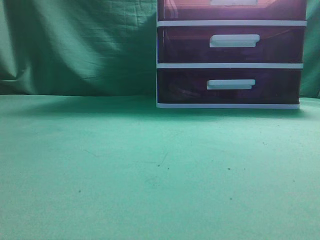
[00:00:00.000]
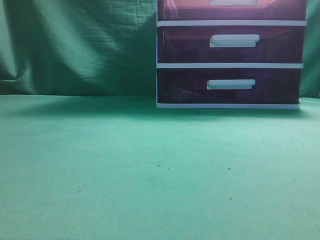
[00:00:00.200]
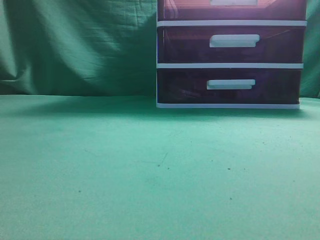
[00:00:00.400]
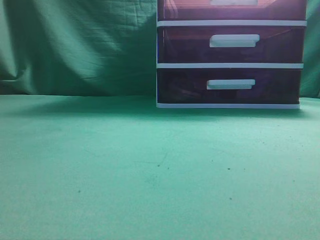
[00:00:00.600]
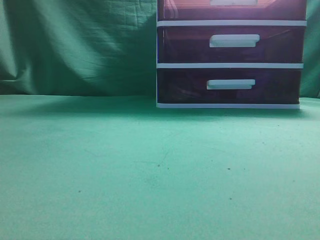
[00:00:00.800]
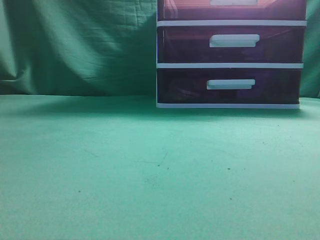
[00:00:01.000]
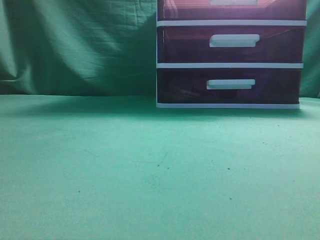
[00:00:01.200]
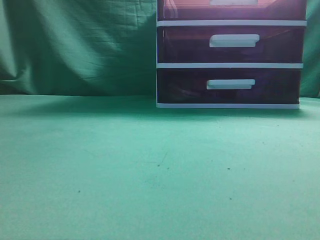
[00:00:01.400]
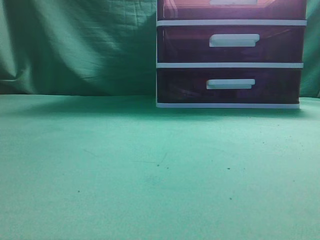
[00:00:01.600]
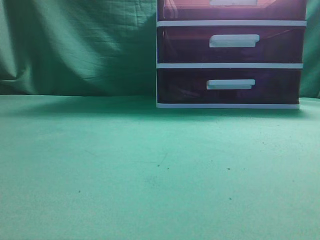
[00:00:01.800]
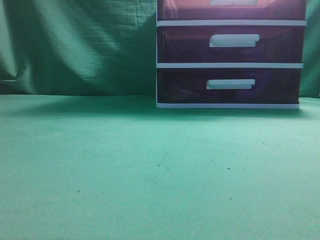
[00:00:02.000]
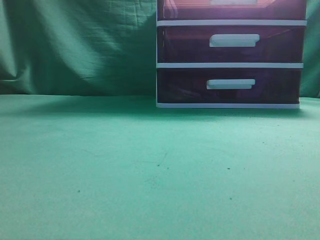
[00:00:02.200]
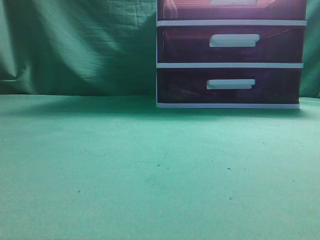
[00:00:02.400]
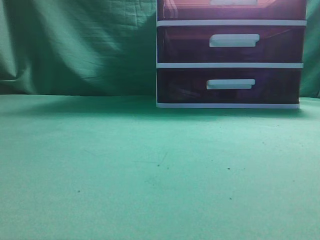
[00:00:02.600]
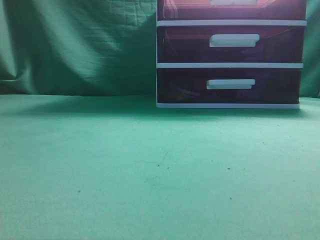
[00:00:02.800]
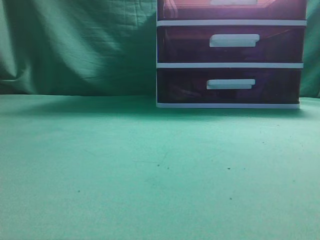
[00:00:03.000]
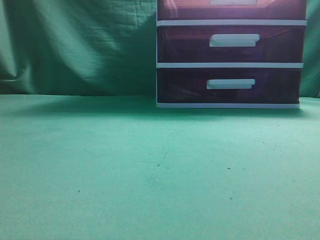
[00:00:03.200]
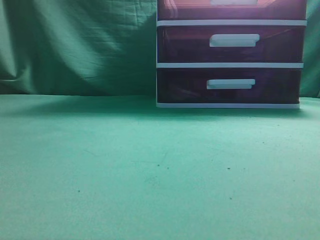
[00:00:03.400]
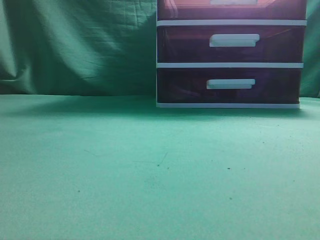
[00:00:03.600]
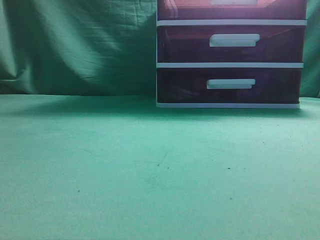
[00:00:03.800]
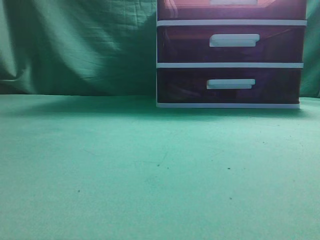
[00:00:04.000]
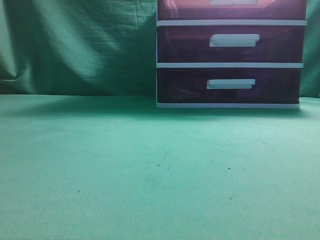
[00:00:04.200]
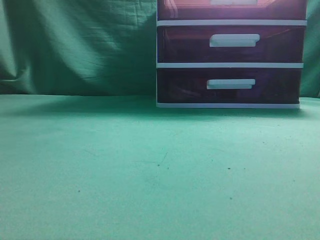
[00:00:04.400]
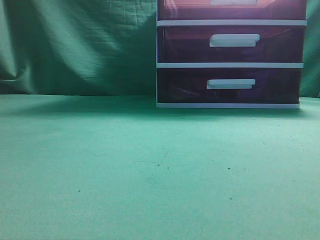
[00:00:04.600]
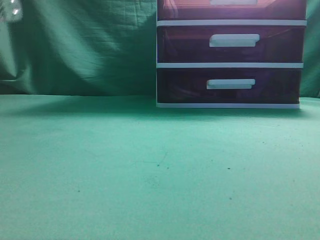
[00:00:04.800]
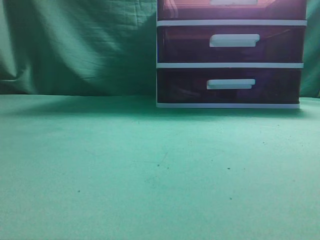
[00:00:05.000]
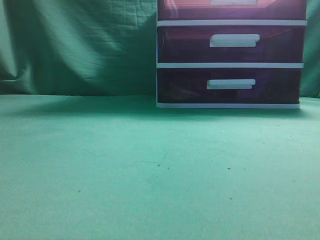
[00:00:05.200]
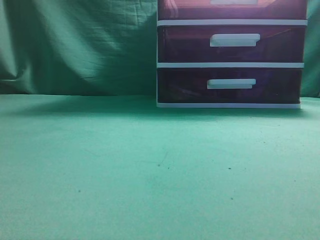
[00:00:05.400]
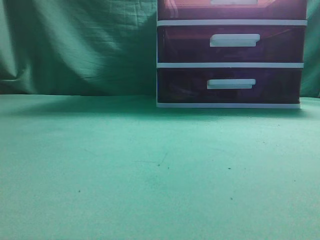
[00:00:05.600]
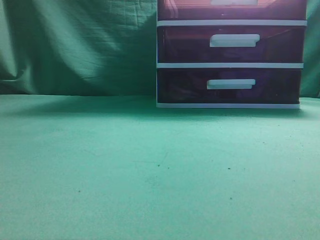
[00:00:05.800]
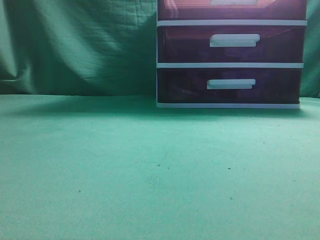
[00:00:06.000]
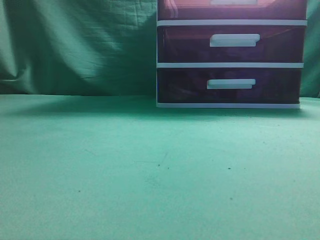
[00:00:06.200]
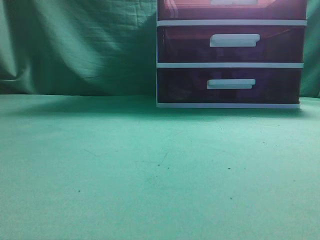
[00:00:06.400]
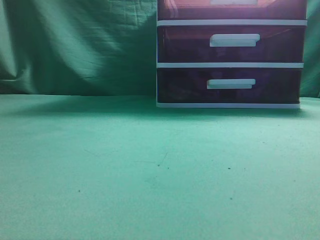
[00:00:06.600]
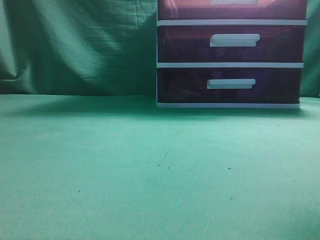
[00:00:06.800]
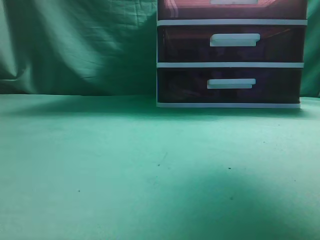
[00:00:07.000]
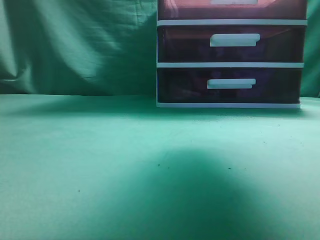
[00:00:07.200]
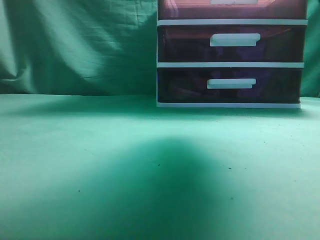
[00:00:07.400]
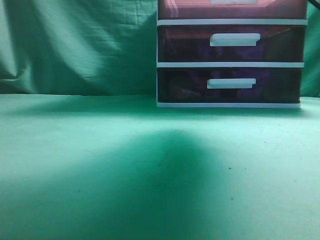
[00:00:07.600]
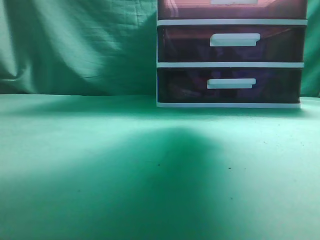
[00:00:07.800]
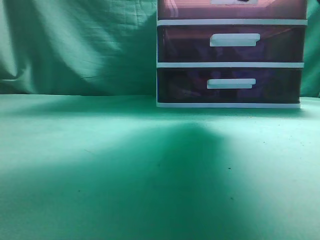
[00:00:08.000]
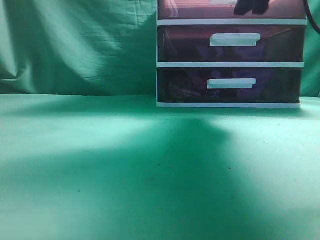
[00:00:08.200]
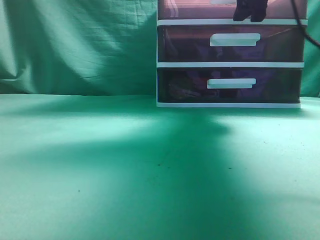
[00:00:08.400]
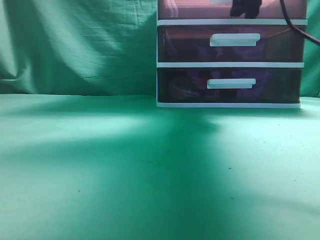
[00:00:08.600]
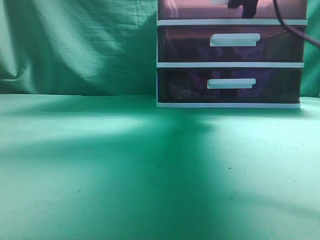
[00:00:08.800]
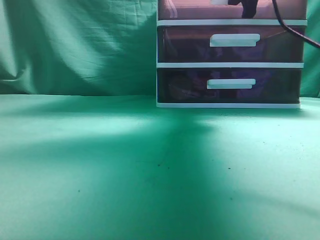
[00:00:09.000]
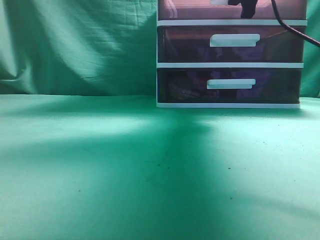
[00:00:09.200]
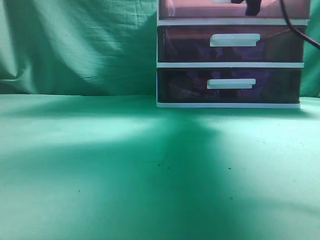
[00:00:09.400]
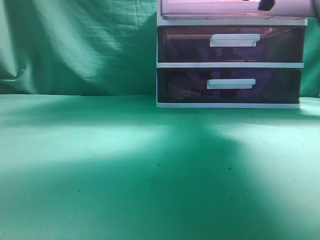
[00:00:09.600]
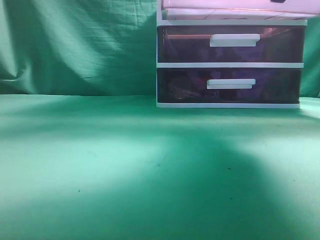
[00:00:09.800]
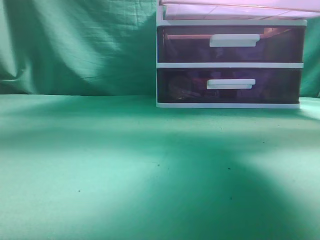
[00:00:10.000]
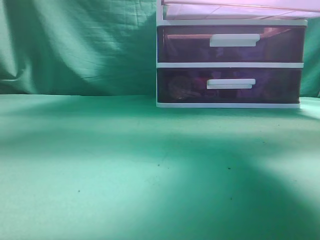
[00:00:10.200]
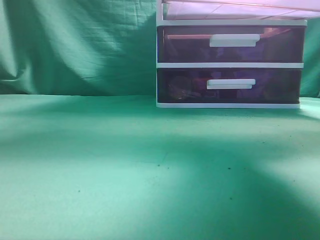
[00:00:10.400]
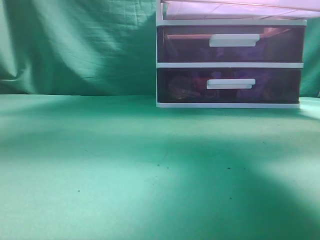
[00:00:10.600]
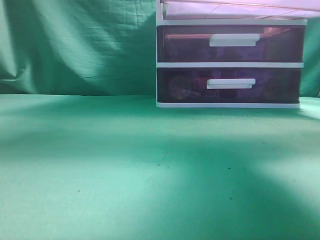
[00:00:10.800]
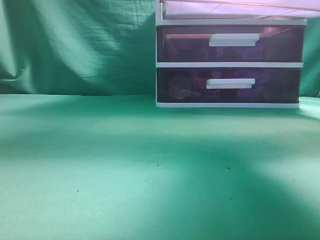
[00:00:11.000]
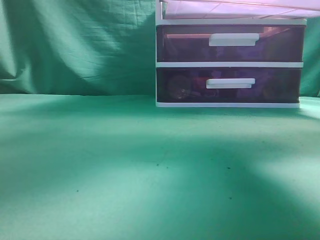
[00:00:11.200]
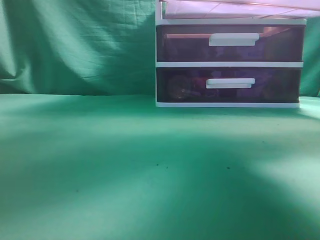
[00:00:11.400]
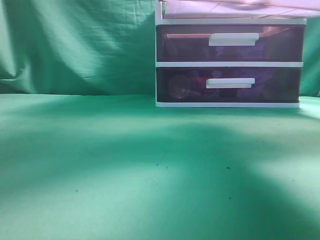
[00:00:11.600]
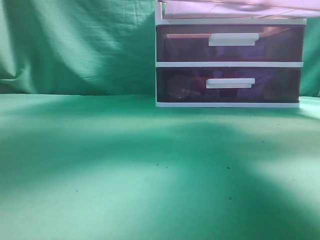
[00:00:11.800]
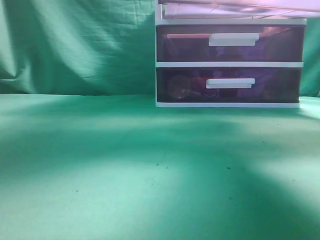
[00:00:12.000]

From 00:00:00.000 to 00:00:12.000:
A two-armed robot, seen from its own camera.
Task of the whole recording: place the water bottle into the drawer.
Step, from 00:00:00.000 to 00:00:10.400: Open the drawer.
From 00:00:06.000 to 00:00:07.600: The right gripper goes some 30 cm forward and to the left, and opens up.
From 00:00:07.600 to 00:00:09.000: The right gripper is displaced forward by some 10 cm, and closes up.
From 00:00:09.000 to 00:00:10.400: The right gripper is displaced backward by about 15 cm.
From 00:00:10.400 to 00:00:12.000: The left gripper moves forward and to the right, approximately 40 cm.

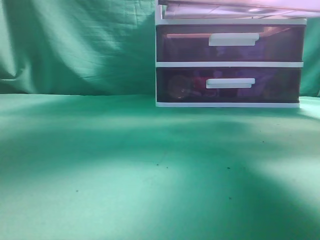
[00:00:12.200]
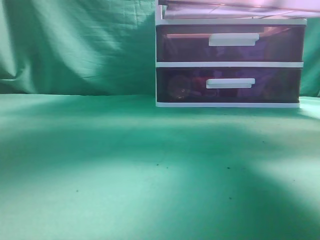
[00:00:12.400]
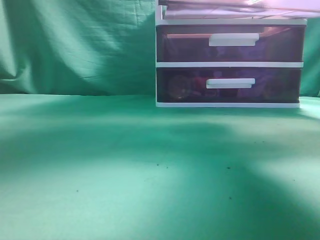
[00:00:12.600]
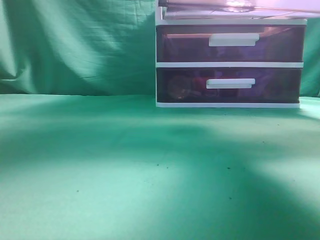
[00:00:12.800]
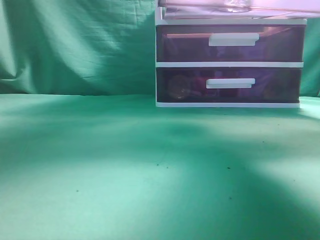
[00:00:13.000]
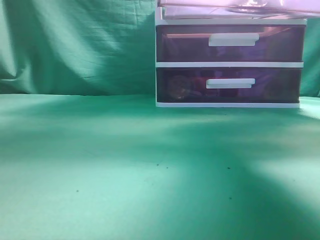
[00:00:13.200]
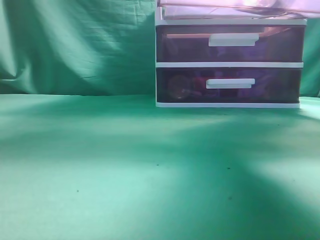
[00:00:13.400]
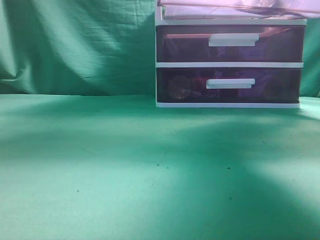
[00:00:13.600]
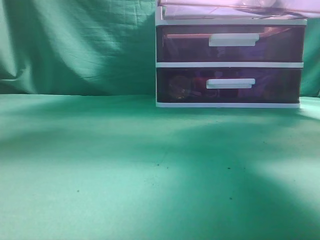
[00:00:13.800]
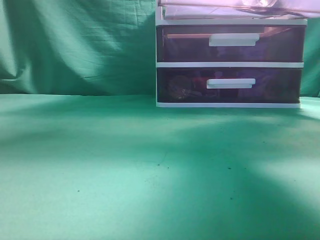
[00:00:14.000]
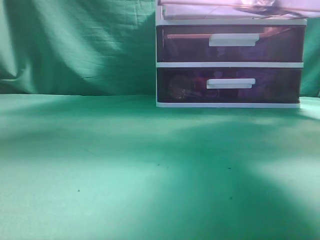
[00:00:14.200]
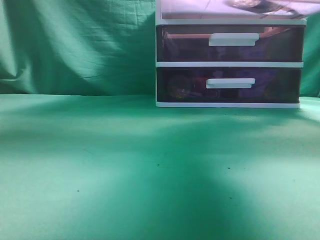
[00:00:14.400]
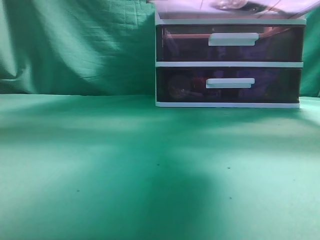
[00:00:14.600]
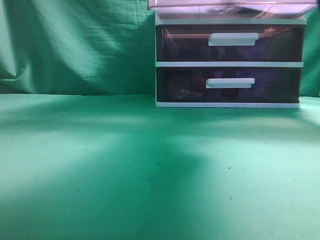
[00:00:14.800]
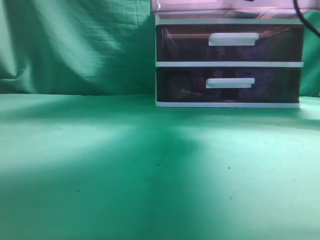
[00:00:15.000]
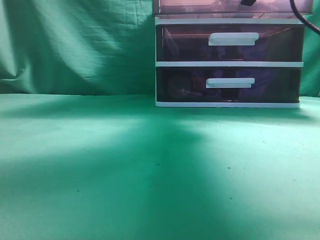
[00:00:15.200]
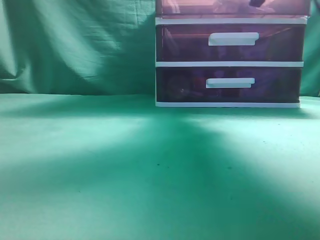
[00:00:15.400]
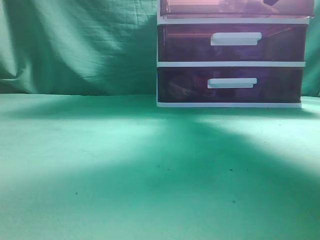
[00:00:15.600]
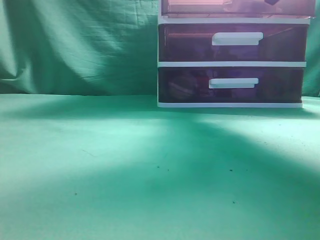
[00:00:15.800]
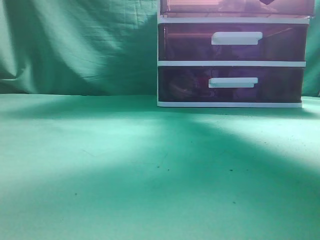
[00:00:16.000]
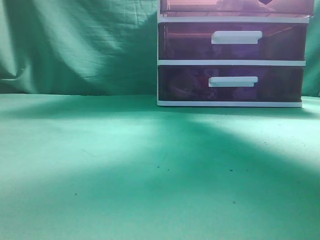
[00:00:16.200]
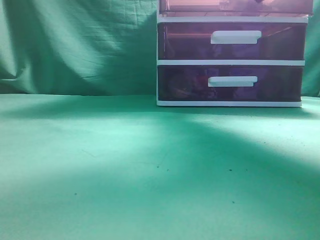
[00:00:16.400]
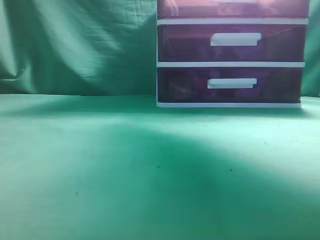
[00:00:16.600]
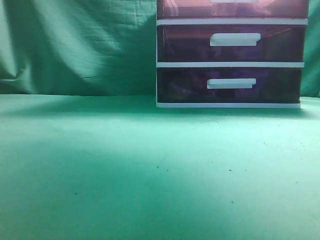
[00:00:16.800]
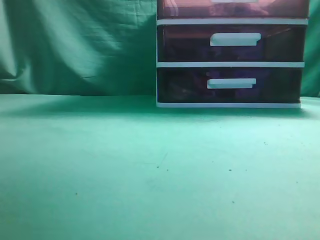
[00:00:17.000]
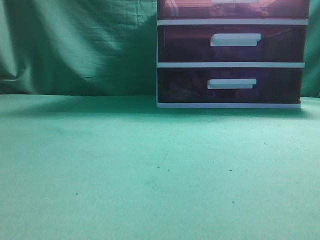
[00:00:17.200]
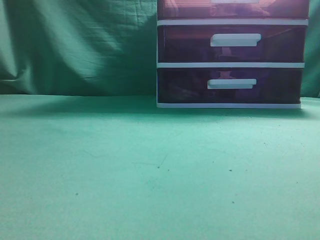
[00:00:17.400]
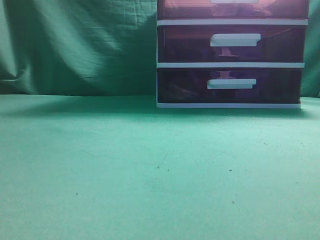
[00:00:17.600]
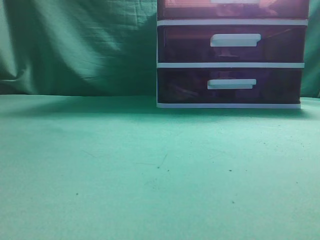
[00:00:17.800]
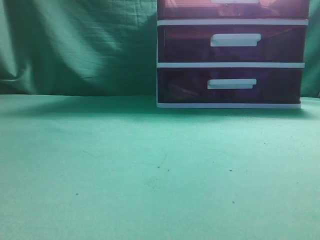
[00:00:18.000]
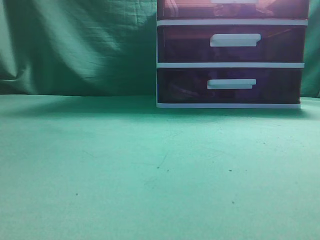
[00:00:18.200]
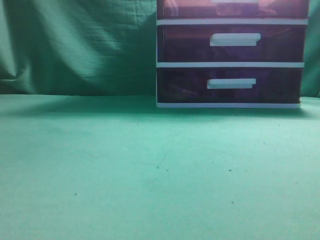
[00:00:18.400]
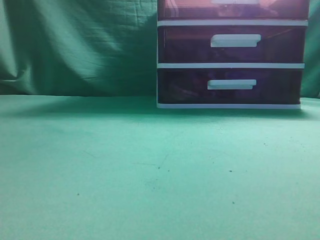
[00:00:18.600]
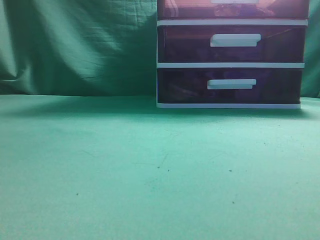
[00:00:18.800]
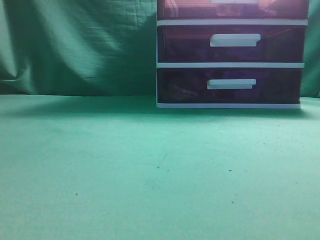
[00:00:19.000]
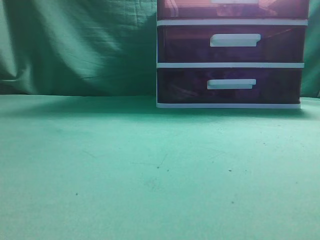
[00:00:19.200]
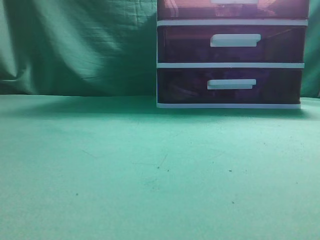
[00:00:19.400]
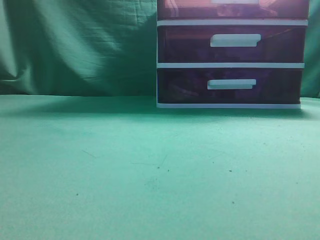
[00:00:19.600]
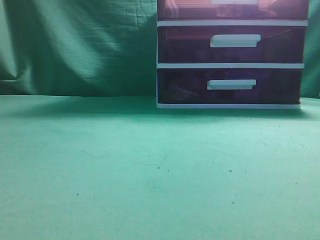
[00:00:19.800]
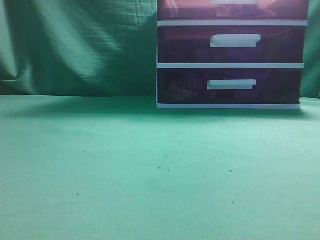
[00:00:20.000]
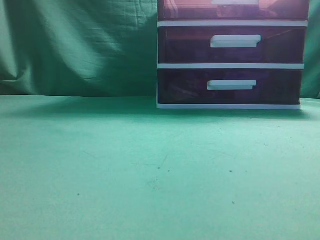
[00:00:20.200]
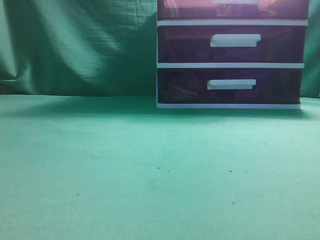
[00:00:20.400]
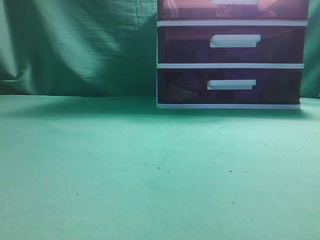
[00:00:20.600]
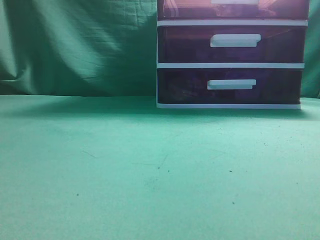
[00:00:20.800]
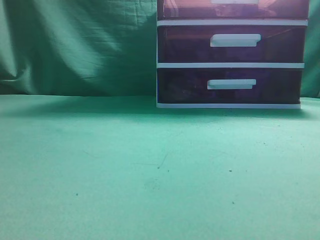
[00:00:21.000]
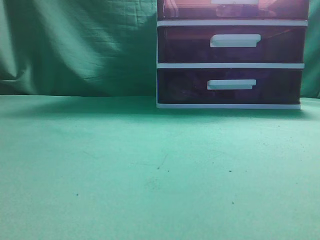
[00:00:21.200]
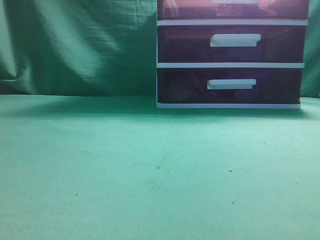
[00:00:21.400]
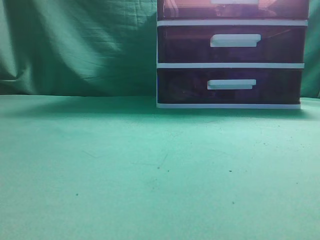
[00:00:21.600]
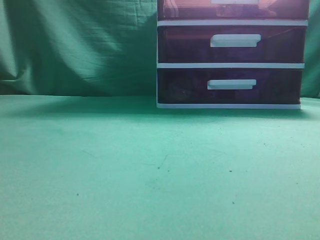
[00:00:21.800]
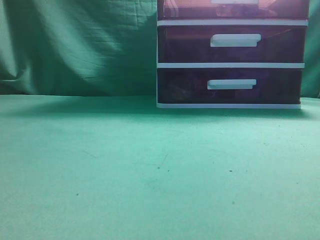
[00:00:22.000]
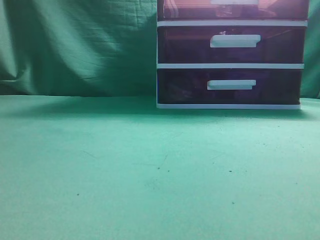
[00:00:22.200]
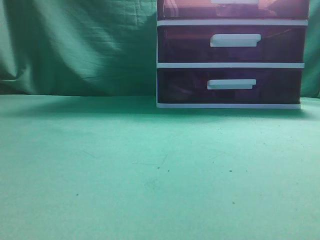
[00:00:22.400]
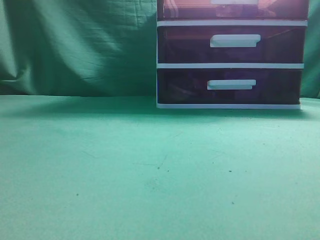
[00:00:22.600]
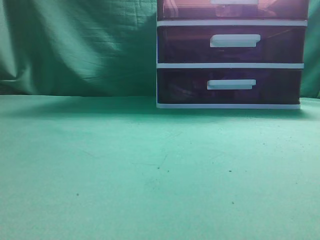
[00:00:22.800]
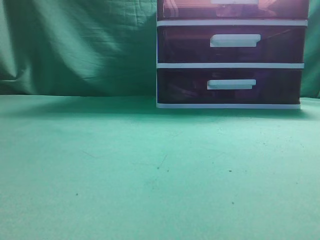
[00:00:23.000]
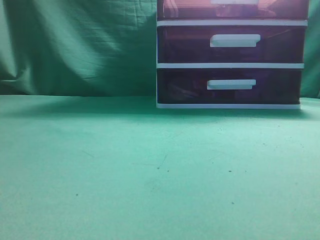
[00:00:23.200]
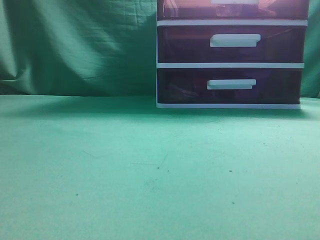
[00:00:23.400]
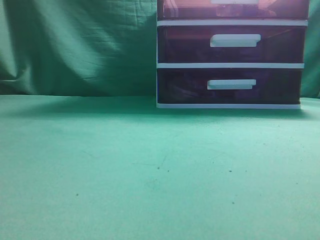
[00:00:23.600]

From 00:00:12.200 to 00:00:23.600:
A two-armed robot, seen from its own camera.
Task of the whole recording: place the water bottle into the drawer.
Step, from 00:00:12.200 to 00:00:13.800: Place the water bottle inside the drawer.
Step, from 00:00:14.000 to 00:00:16.800: Close the drawer.
From 00:00:12.200 to 00:00:13.600: The left gripper heads upward, covering about 10 cm.
From 00:00:13.600 to 00:00:15.000: The left gripper goes roughly 10 cm to the left, and closes. The right gripper heads forward, covering approximately 10 cm.
From 00:00:15.000 to 00:00:16.400: The right gripper moves to the right and forward, roughly 10 cm.
From 00:00:16.400 to 00:00:17.800: The left gripper shifts approximately 15 cm upward and backward; the right gripper shifts approximately 25 cm backward and upward, and opens and closes again.
